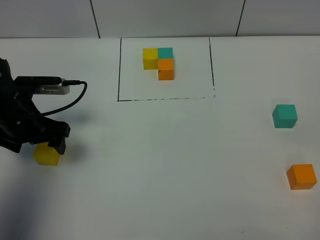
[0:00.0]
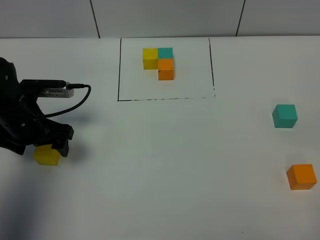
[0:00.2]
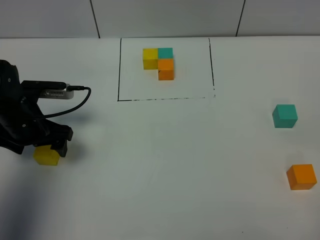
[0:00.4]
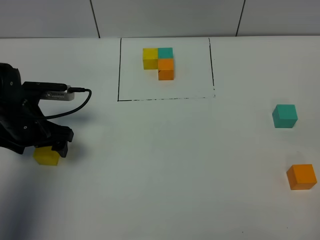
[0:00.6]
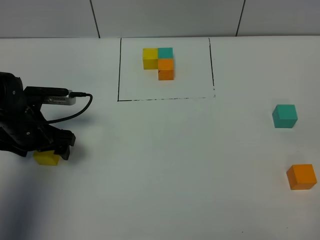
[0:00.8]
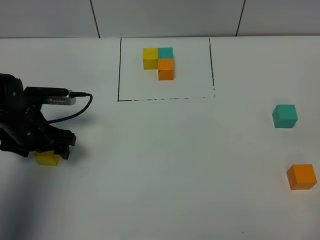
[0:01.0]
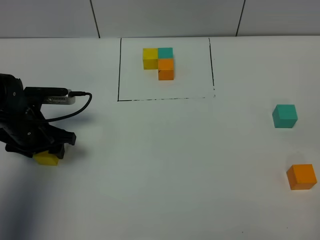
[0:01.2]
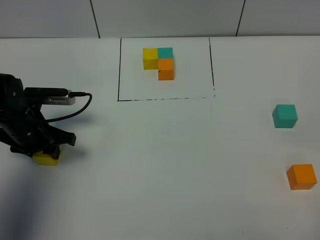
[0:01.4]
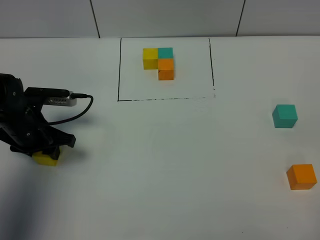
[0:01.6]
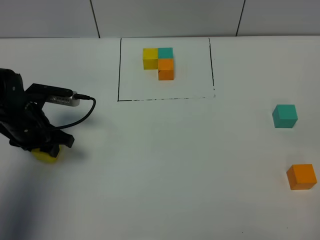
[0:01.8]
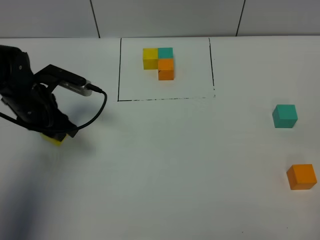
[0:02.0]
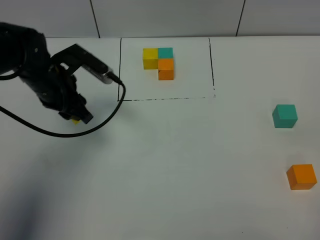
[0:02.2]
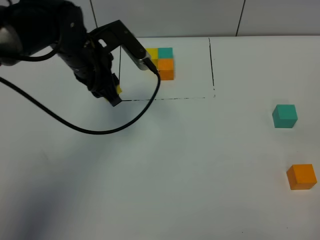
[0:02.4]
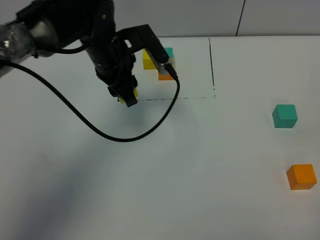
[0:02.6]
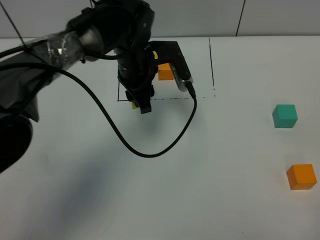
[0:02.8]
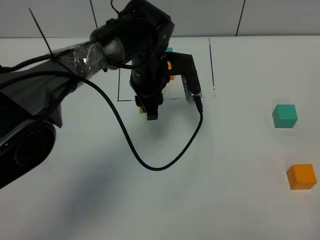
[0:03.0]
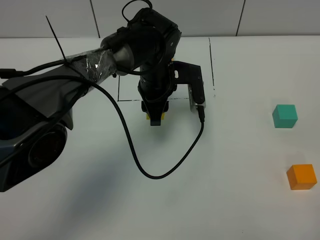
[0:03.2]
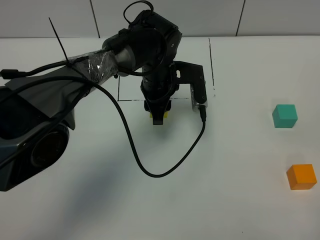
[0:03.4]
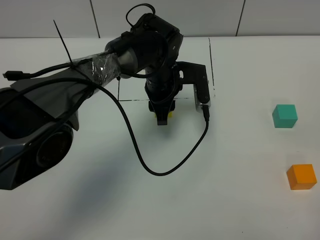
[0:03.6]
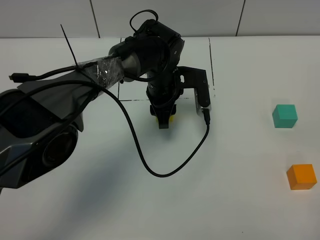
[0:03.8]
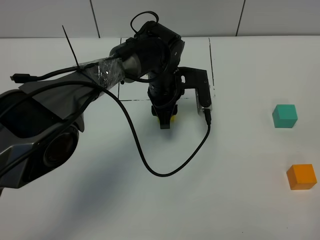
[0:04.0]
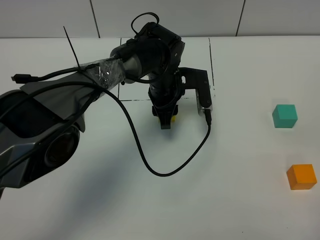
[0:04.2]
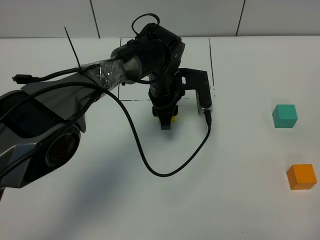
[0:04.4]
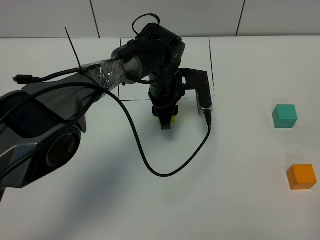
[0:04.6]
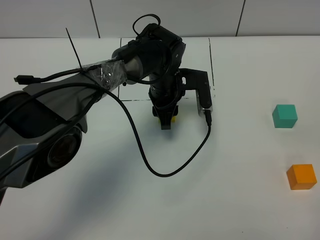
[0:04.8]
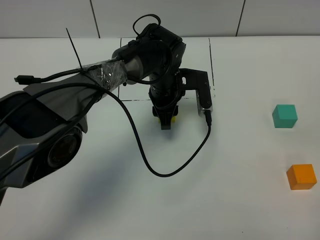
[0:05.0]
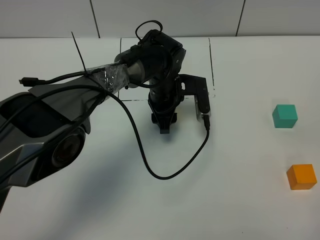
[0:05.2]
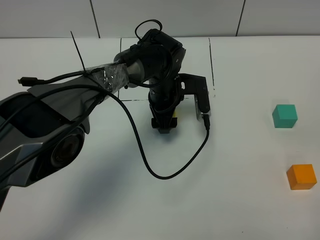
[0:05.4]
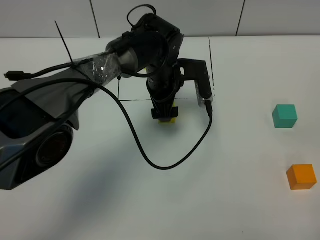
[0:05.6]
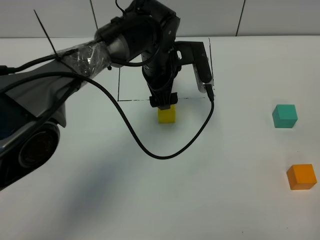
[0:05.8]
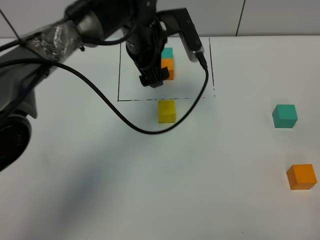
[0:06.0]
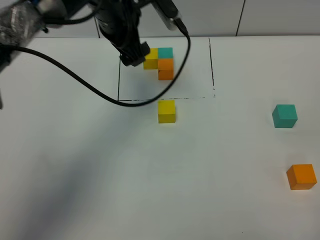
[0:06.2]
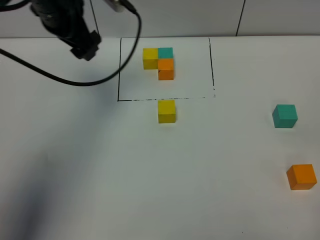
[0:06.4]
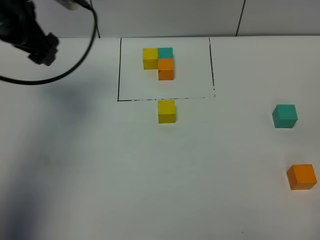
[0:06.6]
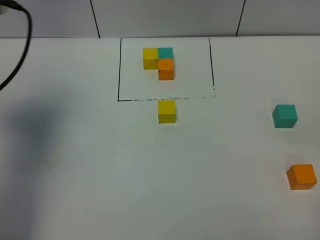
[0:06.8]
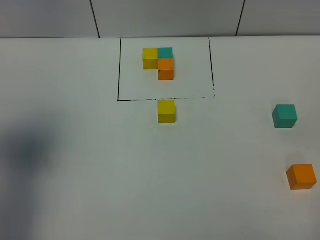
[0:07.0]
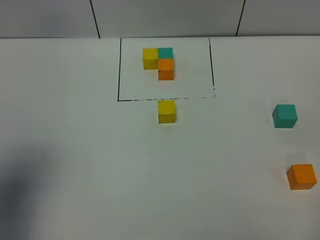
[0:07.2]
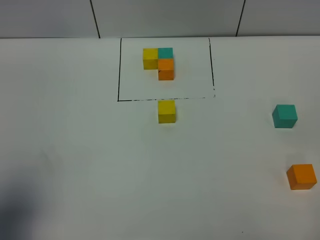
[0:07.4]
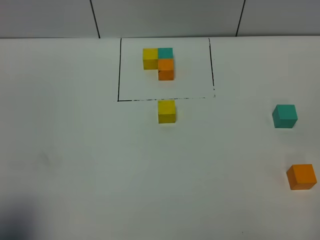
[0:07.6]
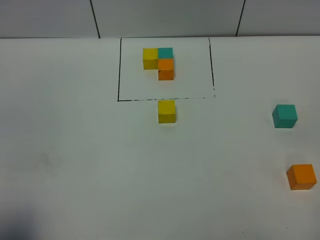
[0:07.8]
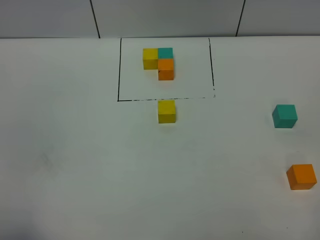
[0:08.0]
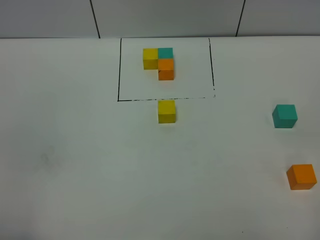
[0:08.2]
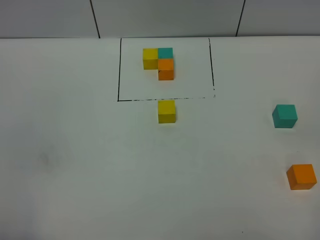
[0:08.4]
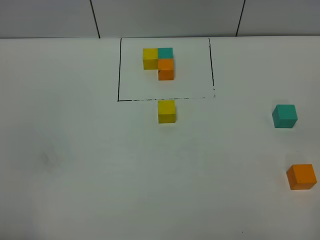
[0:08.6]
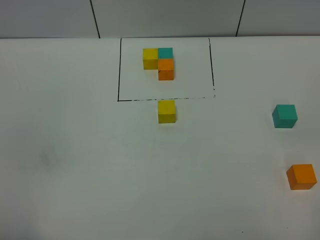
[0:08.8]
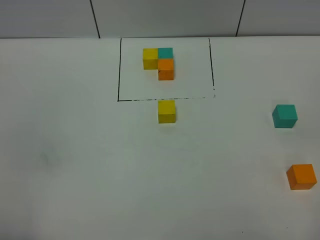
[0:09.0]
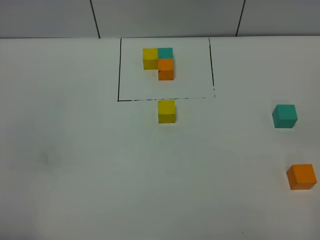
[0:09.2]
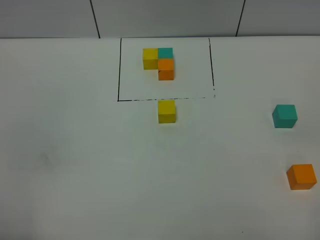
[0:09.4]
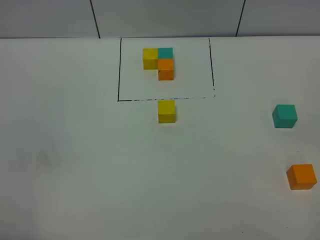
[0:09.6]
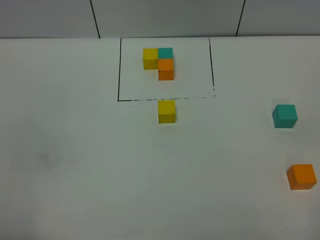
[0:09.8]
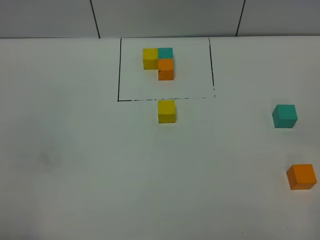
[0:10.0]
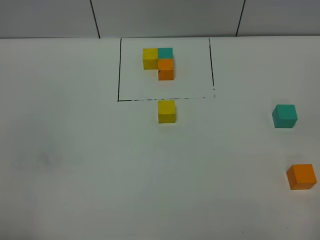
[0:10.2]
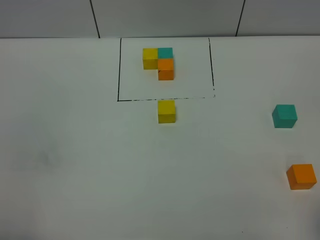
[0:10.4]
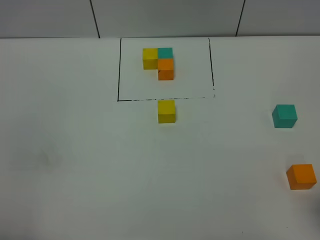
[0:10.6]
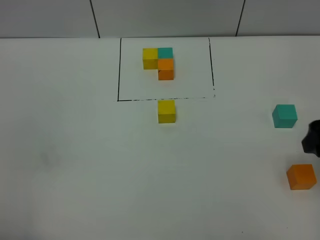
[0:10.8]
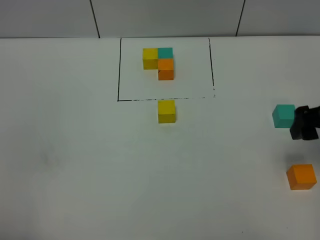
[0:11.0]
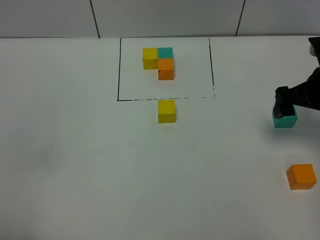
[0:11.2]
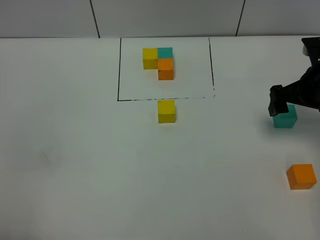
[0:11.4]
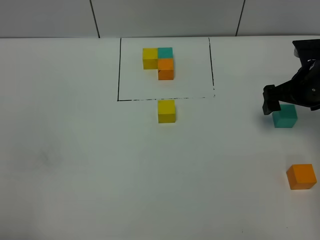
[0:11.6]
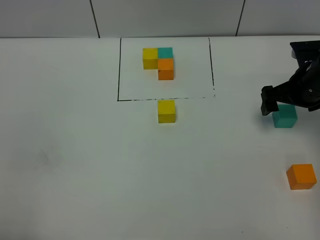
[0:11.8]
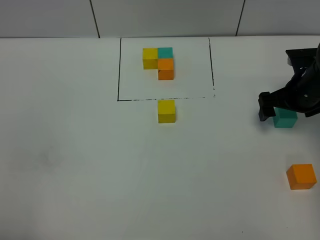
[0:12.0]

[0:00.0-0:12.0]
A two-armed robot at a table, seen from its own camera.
Task of the whole recording: According to the building block template in front, assemble the scattered blocks together.
Step, 0:00.0 to 0:05.0: Put the yellow build block in the center of the table.
0:00.0 to 0:01.6: The left gripper closes up.
0:01.6 to 0:03.0: The left gripper moves to the right, roughly 25 cm.
0:03.0 to 0:04.4: The left gripper goes about 5 cm downward.
0:04.4 to 0:06.0: The left gripper travels upward by some 15 cm, and opens.
0:06.0 to 0:07.6: The left gripper goes approximately 50 cm backward and to the left.
0:07.6 to 0:09.0: The left gripper heads backward, covering some 5 cm.
0:10.4 to 0:12.0: The right gripper goes roughly 35 cm forward and downward.

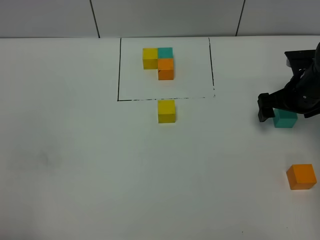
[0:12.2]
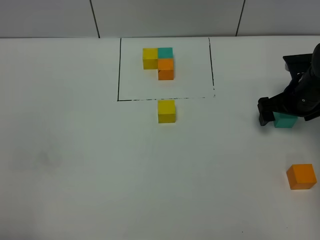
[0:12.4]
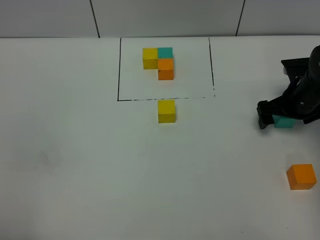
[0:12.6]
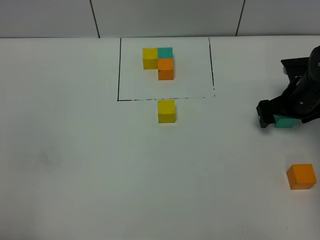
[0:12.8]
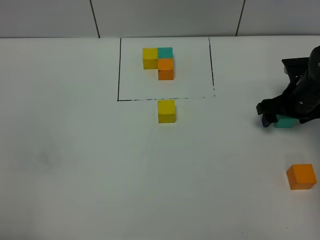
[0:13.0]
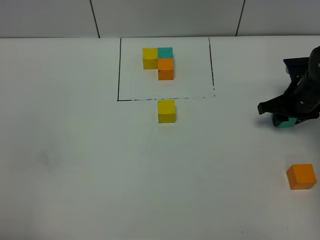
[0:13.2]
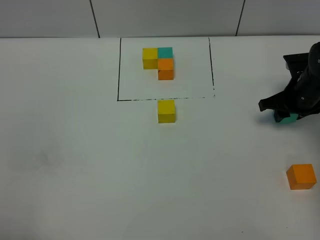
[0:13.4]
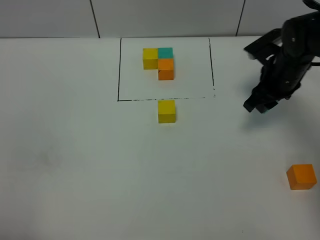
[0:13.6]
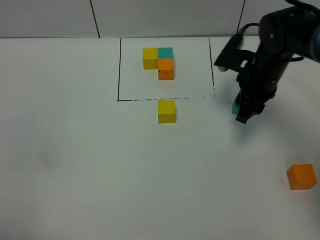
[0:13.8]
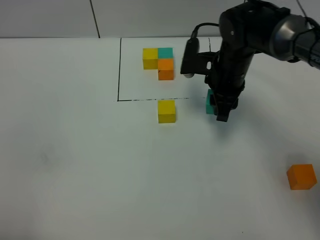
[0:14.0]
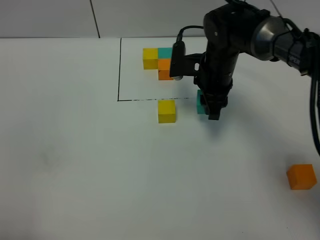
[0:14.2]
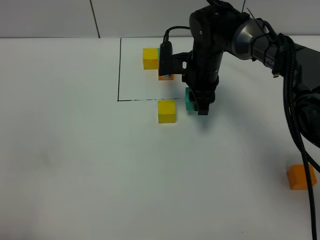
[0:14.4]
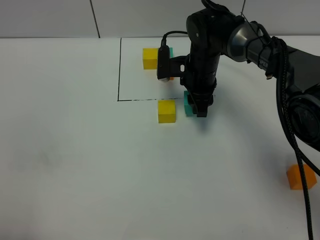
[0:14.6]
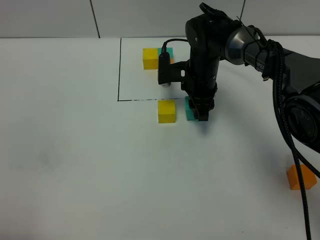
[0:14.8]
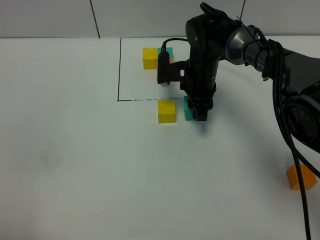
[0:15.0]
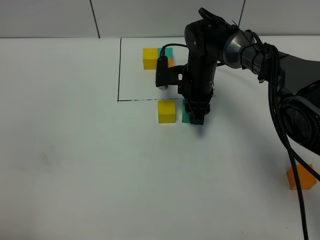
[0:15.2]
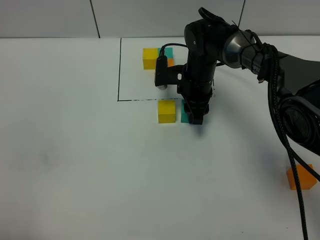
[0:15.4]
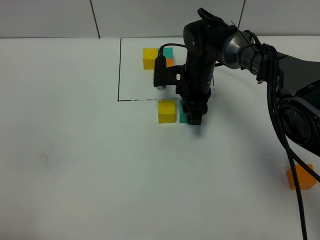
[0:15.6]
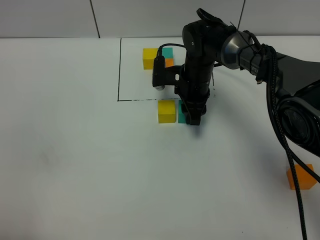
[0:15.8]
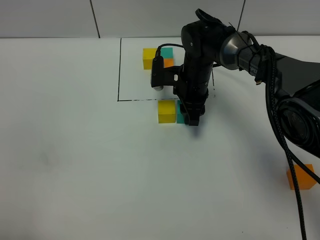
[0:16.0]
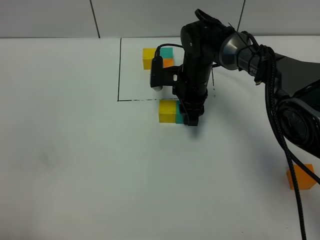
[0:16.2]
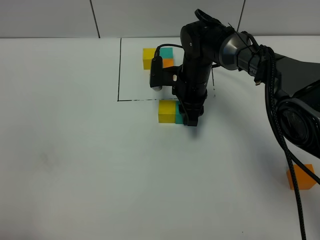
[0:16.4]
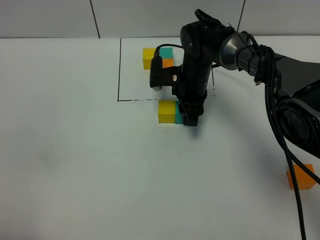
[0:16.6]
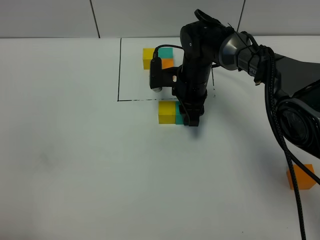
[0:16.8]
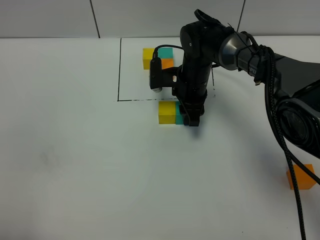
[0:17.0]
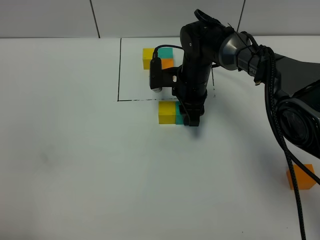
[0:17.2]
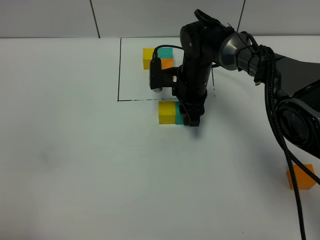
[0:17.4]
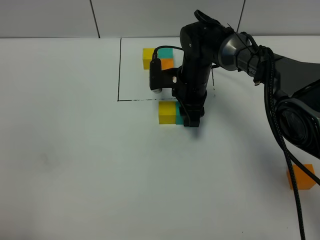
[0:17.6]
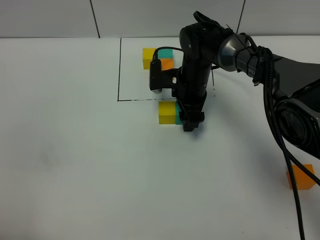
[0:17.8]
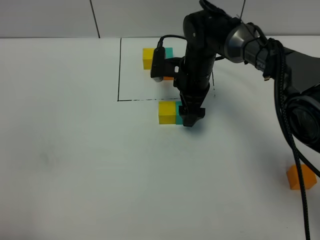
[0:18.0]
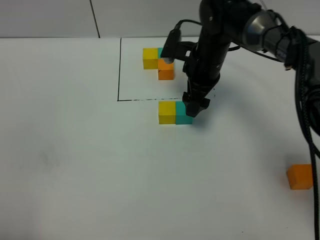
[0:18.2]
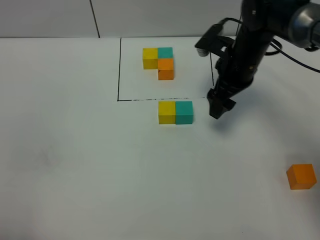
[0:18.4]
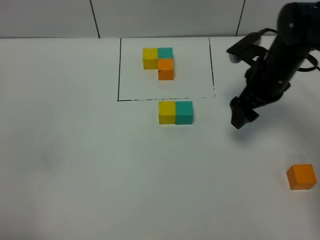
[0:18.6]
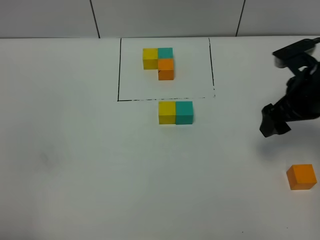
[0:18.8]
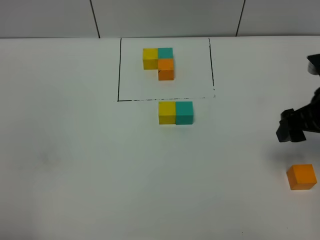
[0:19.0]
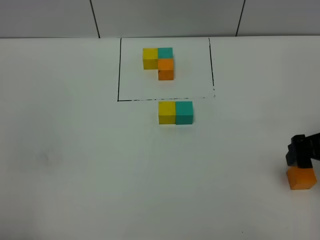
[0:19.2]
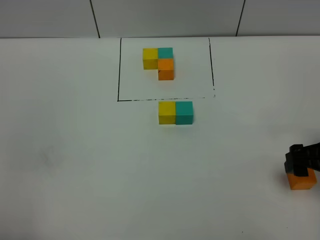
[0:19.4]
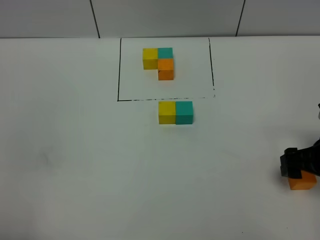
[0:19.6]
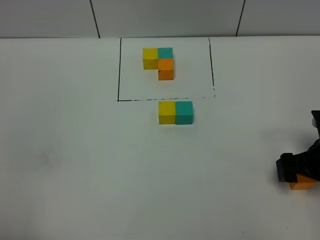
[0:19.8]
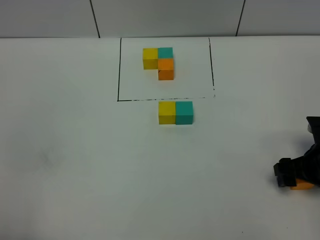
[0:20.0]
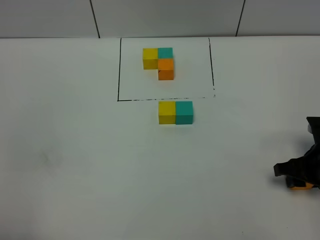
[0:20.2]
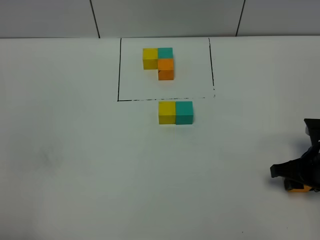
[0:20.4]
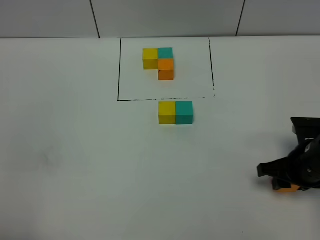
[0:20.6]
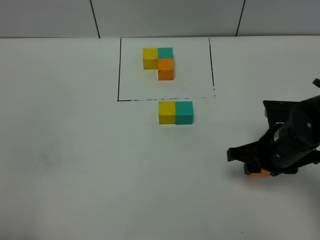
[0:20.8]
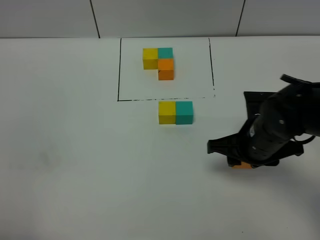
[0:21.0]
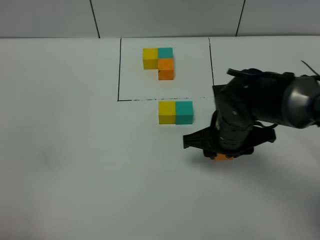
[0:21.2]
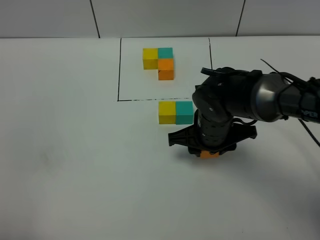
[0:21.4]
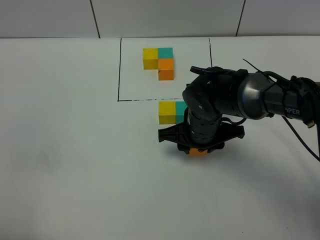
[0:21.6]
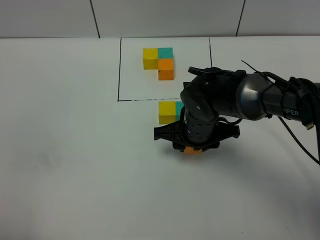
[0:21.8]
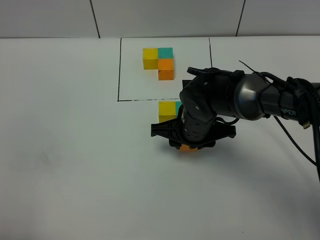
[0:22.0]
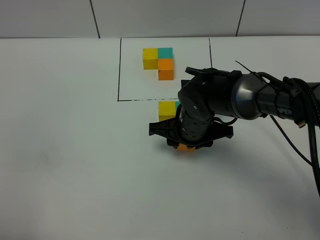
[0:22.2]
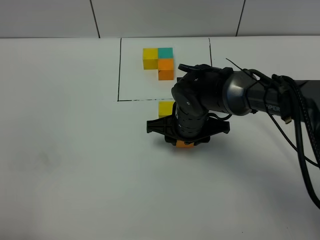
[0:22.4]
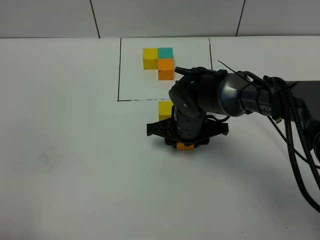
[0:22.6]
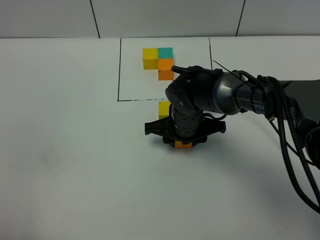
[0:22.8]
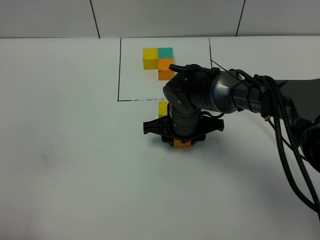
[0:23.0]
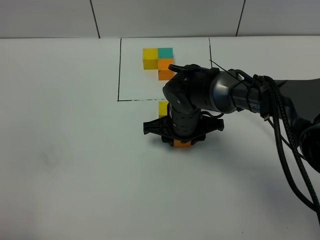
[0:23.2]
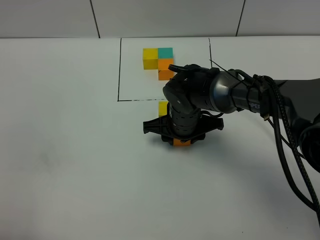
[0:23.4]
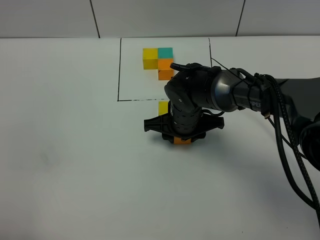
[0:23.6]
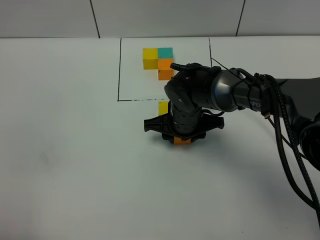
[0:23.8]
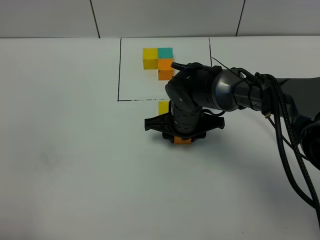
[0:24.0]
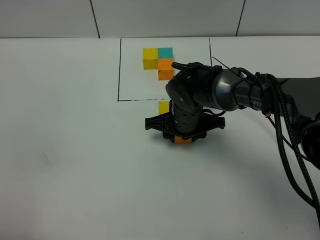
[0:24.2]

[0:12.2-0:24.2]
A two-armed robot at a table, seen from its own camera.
Task of the whole recording: According to the building block template in front, assemble the scattered blocks together.
Step, 0:12.2 to 0:18.0: Put the green build block on the right of the yellow build block.
0:12.2 to 0:13.8: The right gripper moves to the left, some 10 cm, and closes up.
0:13.8 to 0:15.2: The right gripper shifts about 15 cm to the left, downward and forward.
0:15.2 to 0:16.6: Neither gripper changes place.
0:16.6 to 0:18.2: The right gripper heads upward, covering some 5 cm, and opens up.
0:18.2 to 0:19.8: The right gripper travels backward and to the right by roughly 30 cm.
0:19.8 to 0:21.2: The right gripper moves to the left, some 20 cm, and closes.
0:21.2 to 0:22.6: The right gripper heads to the left, covering roughly 5 cm.
0:22.6 to 0:24.2: There are only small adjustments of the grippers.
